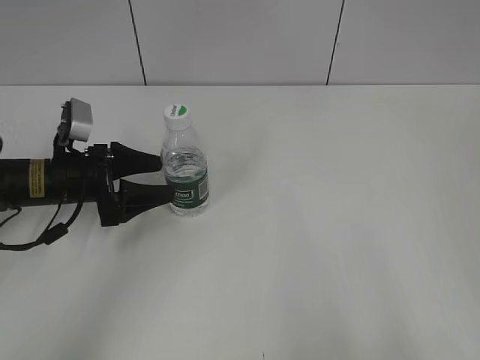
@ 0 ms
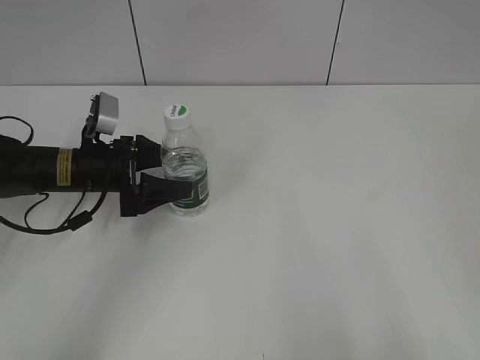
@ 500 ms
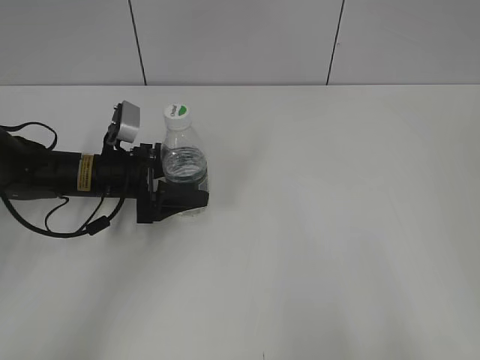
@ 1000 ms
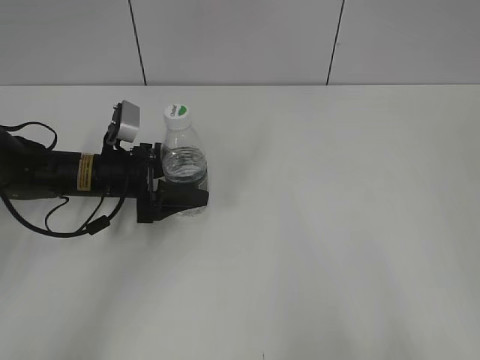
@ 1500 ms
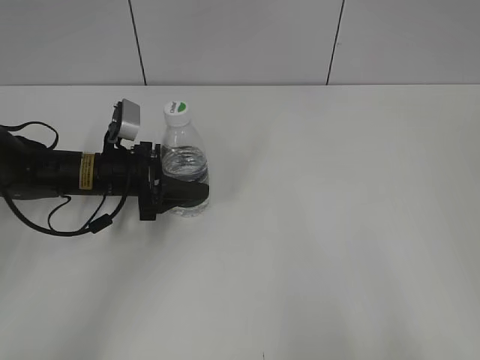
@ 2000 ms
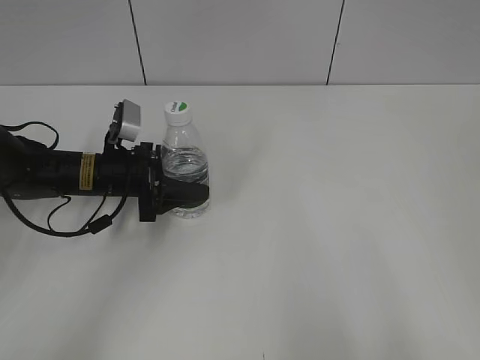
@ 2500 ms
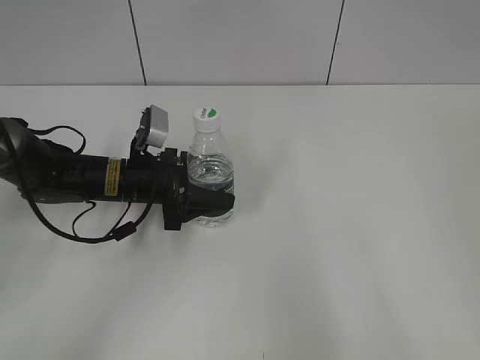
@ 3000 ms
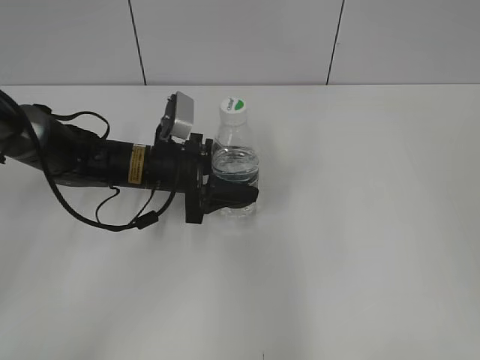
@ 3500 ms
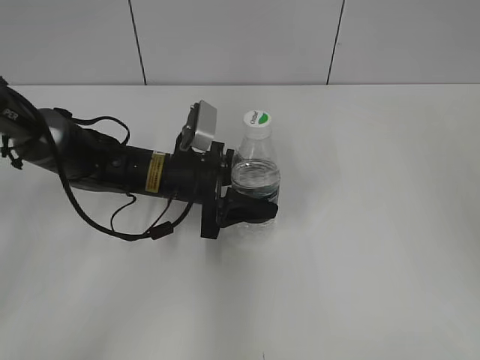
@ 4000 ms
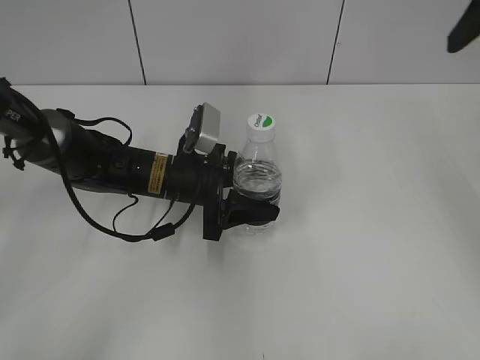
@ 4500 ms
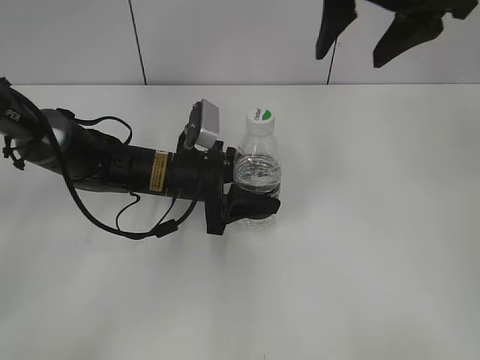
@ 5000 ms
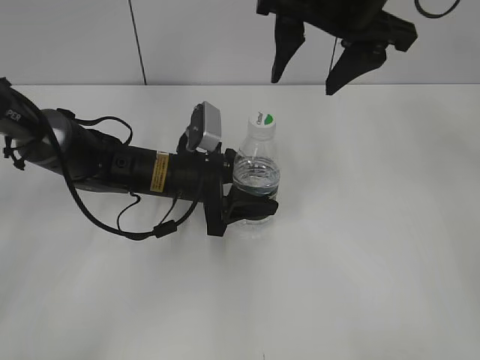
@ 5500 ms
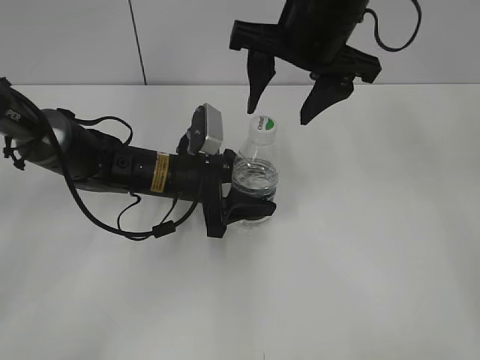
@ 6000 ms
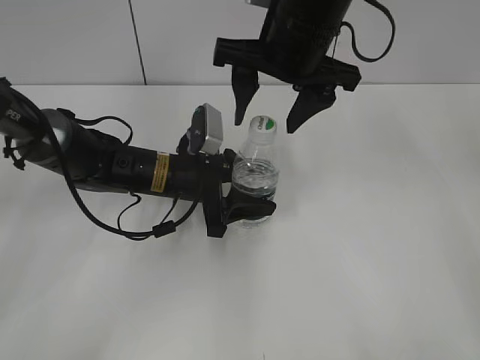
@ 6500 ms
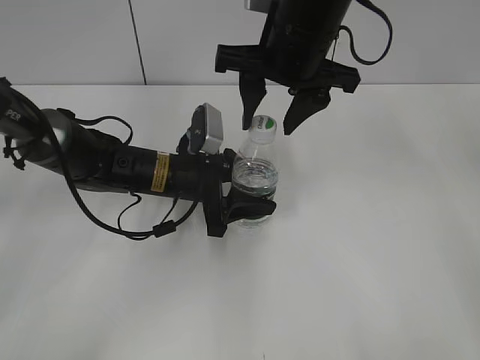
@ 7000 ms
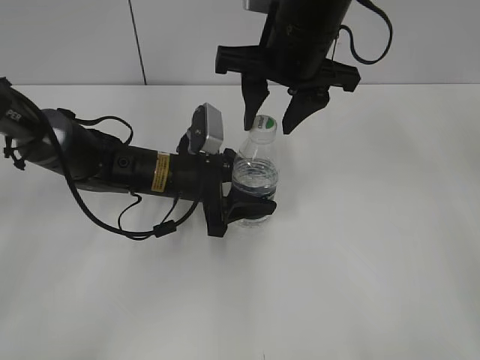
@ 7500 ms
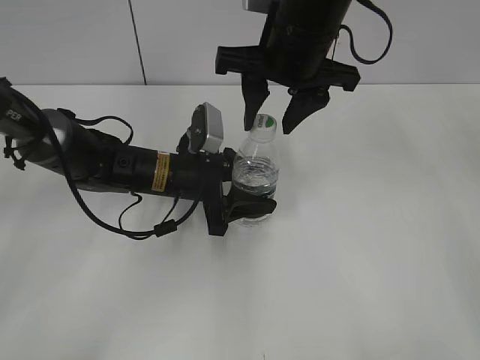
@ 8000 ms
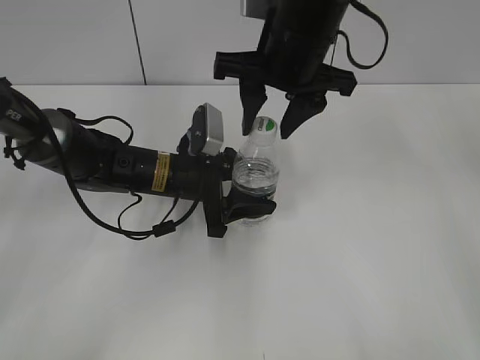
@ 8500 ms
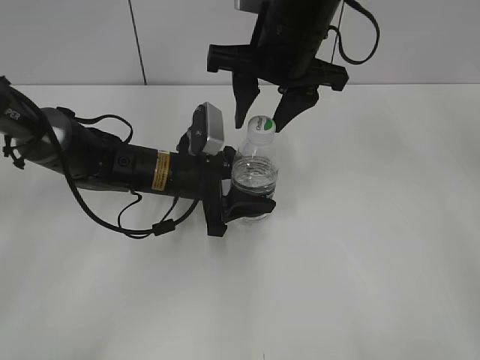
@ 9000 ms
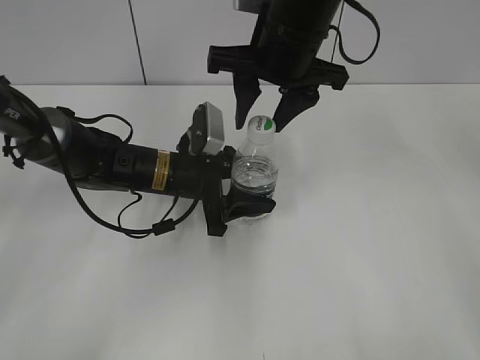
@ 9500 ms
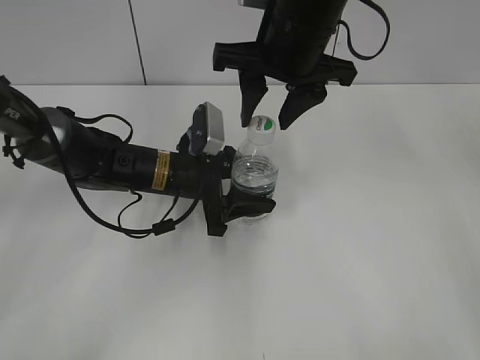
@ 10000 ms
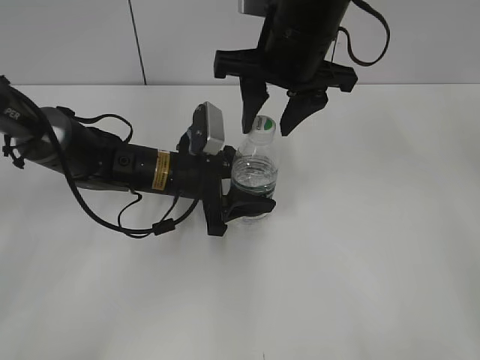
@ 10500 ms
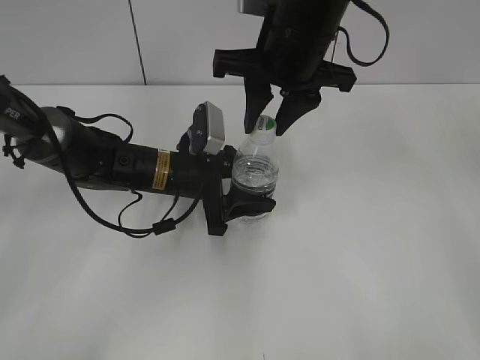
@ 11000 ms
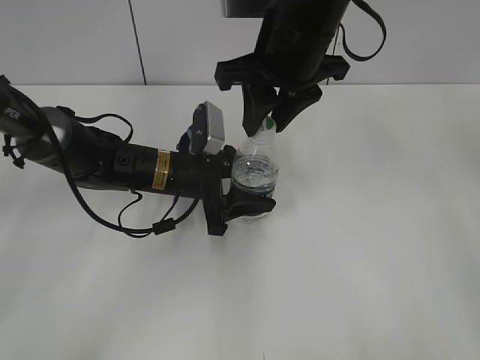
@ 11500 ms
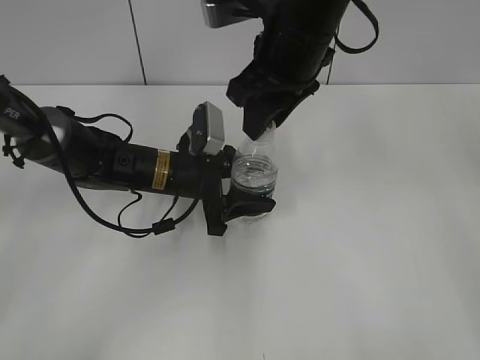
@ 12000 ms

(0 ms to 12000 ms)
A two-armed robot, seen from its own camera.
Step, 0 ms - 2000 ms: Grasp the bottle and move it to the center of the table with the left gripper.
Step, 2500 ms - 4500 ms: Lift the bottle and move it to the center of the table with the left gripper.
0 ms - 2000 ms: The left gripper shifts by approximately 5 cm, and closes up.
2000 ms - 4000 ms: The left gripper travels to the right by roughly 10 cm. Meanwhile the right gripper heads forward, covering some 20 cm.
4000 ms - 6000 ms: The right gripper goes roughly 25 cm to the left and forward.
6000 ms - 8000 ms: The right gripper closes up.
8000 ms - 10000 ms: The grippers make only small movements.
10000 ms - 12000 ms: The right gripper closes.

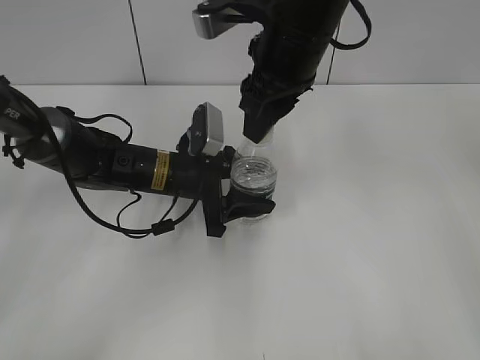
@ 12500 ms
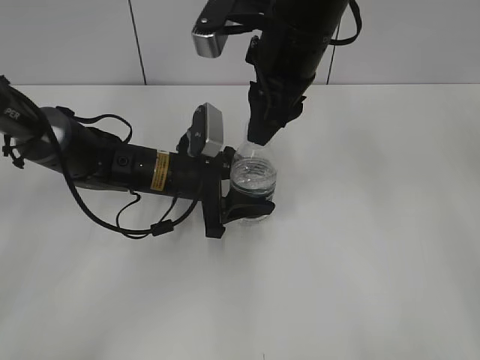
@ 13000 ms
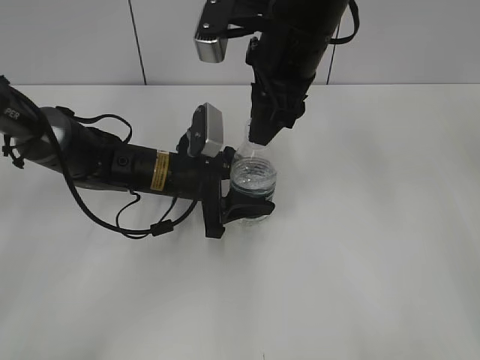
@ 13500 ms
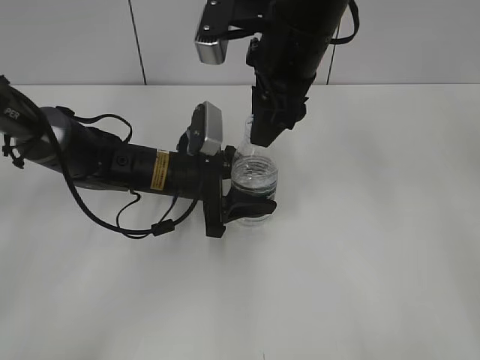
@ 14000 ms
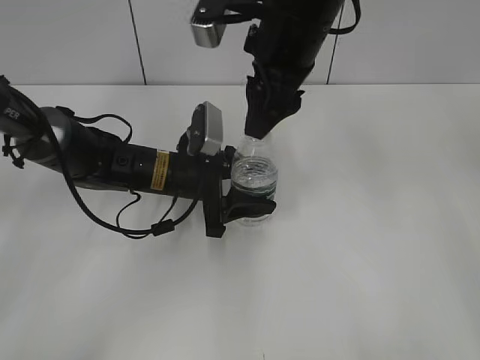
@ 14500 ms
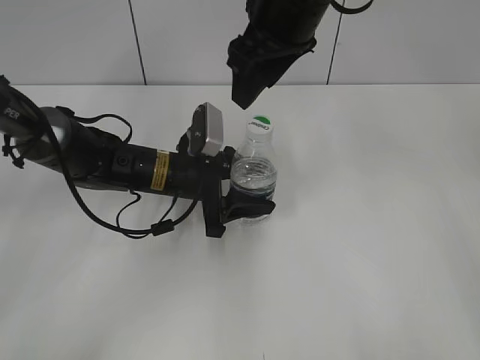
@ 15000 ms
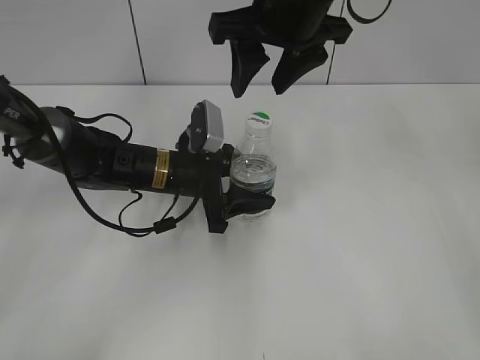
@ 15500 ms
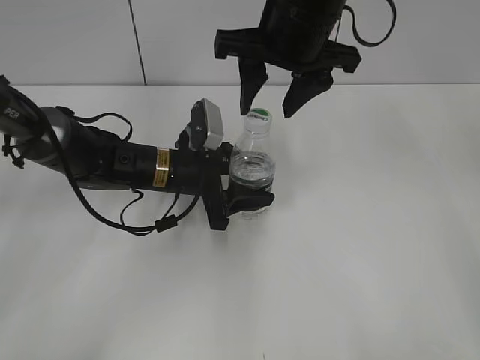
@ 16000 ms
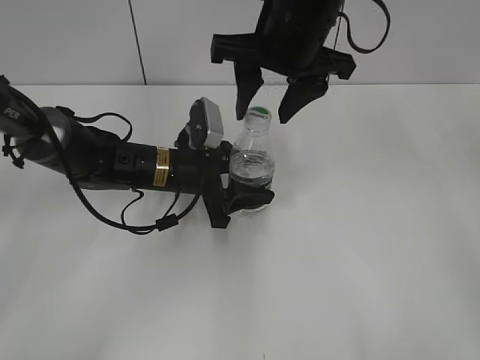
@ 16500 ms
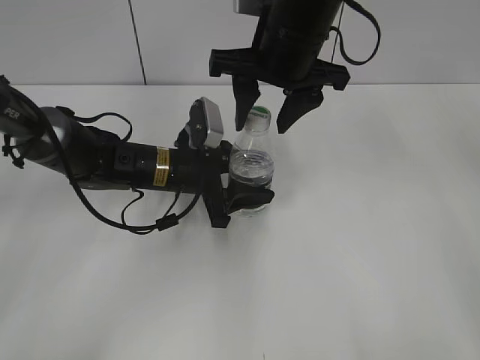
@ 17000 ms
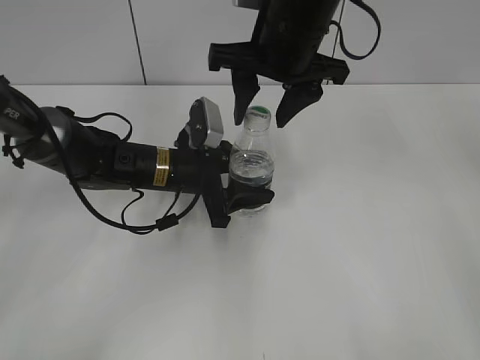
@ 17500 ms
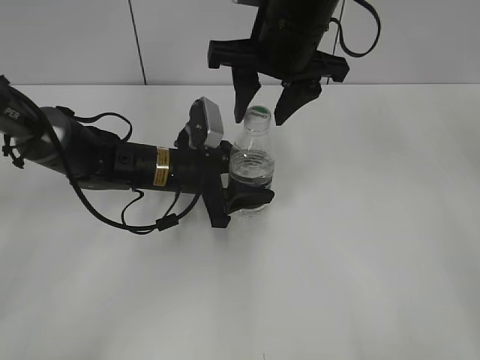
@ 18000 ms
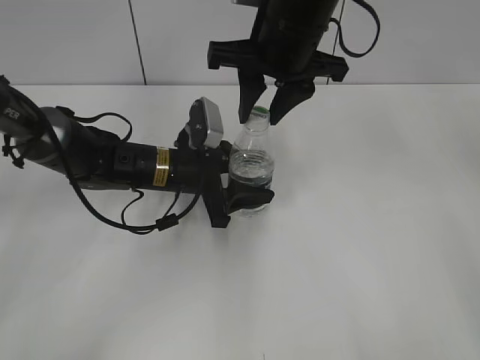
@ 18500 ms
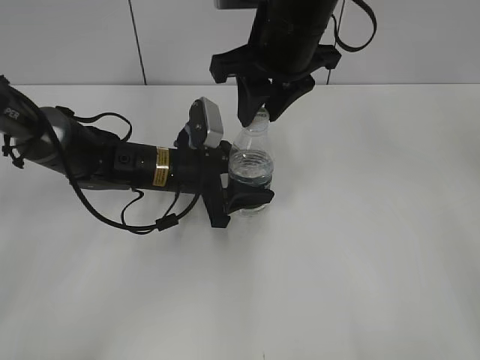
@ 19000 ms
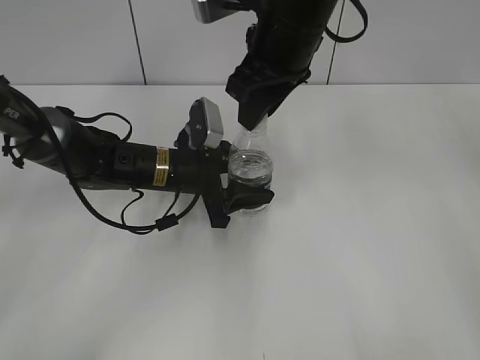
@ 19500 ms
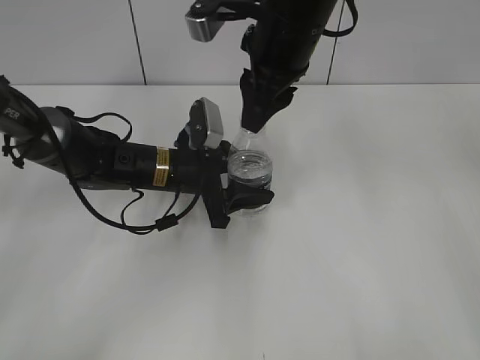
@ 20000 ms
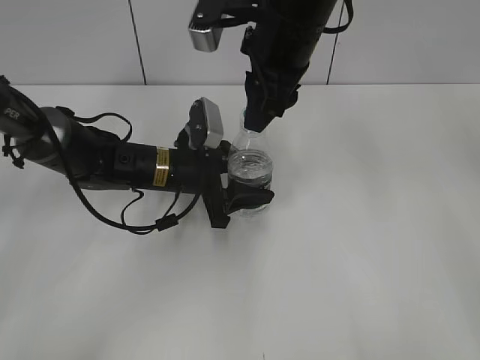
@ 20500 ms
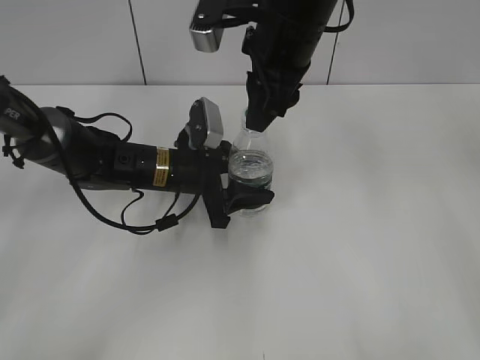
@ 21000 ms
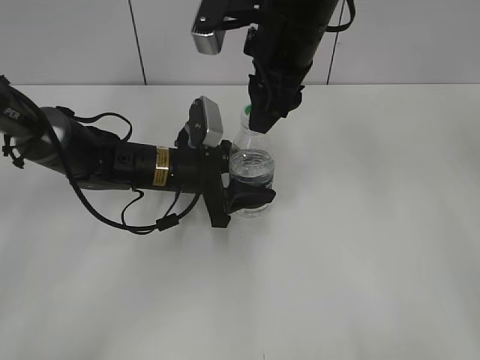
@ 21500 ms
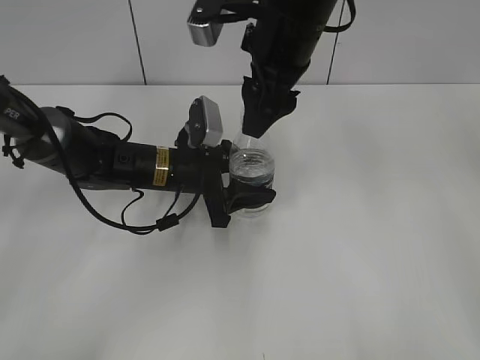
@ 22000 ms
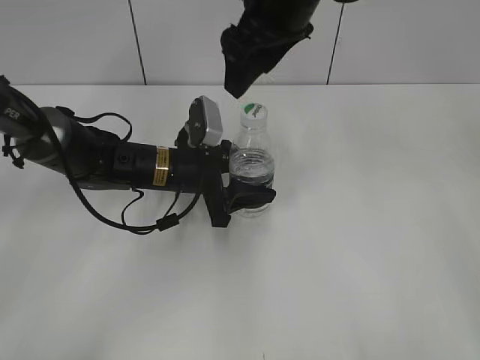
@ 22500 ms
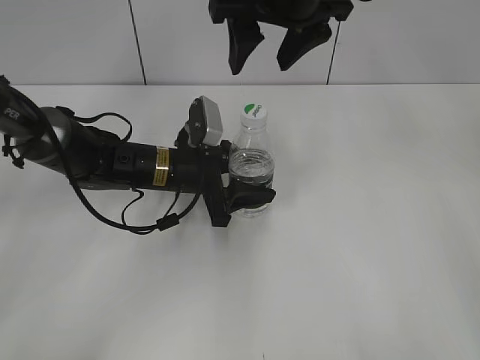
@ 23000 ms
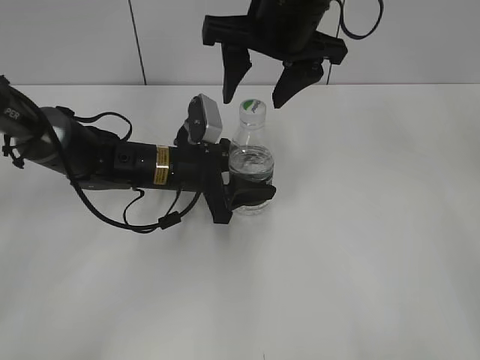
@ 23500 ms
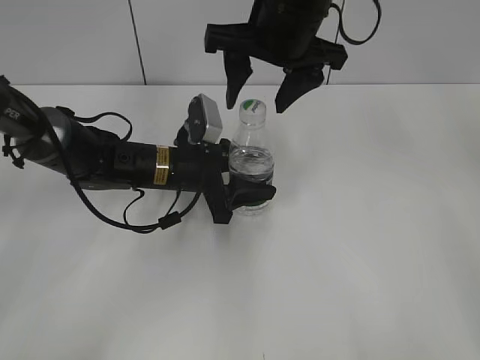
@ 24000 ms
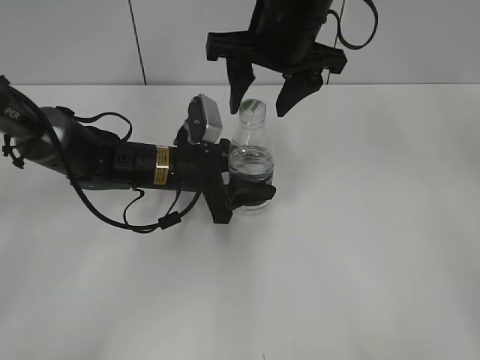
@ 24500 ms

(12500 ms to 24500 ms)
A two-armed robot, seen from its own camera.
12500 ms - 14500 ms: The right gripper opens.
16500 ms - 18500 ms: The right gripper closes up.
20500 ms - 22500 ms: The right gripper opens up.

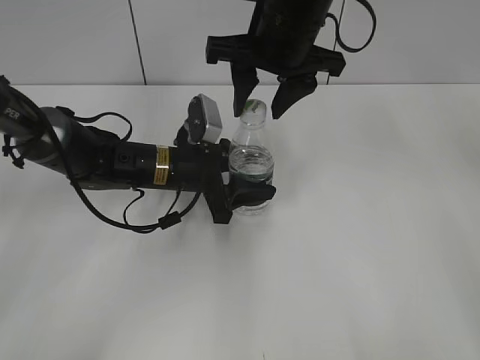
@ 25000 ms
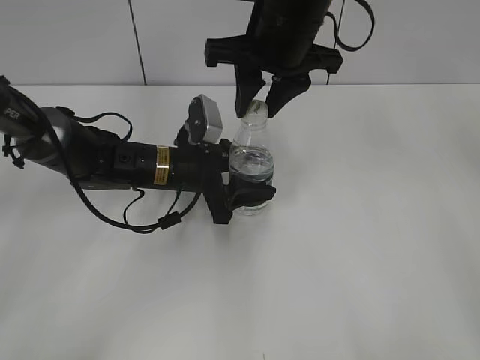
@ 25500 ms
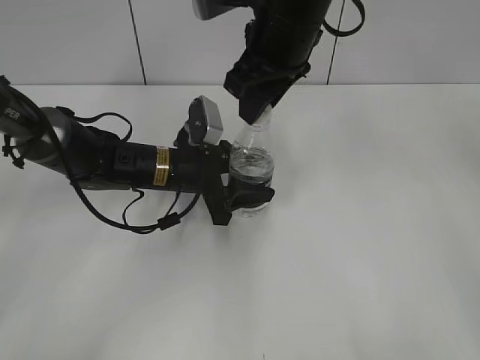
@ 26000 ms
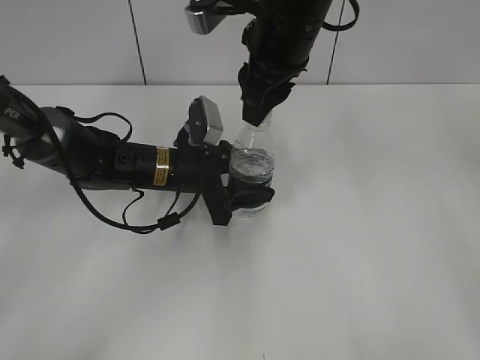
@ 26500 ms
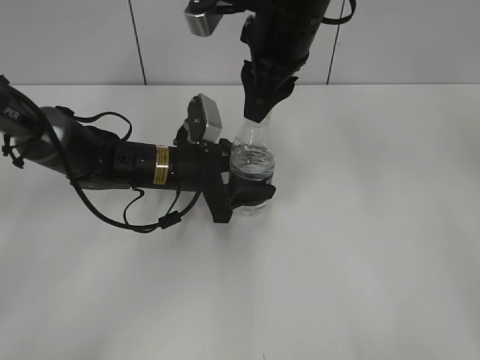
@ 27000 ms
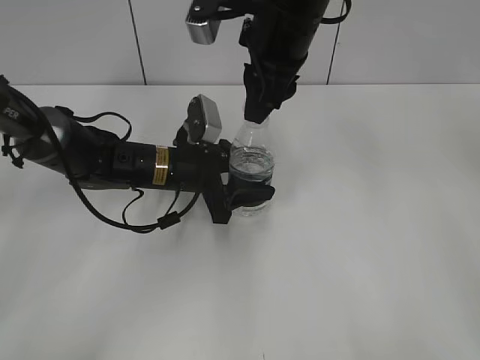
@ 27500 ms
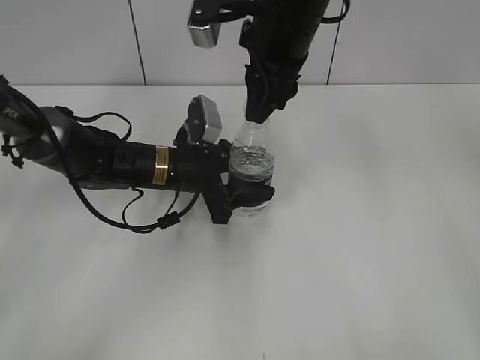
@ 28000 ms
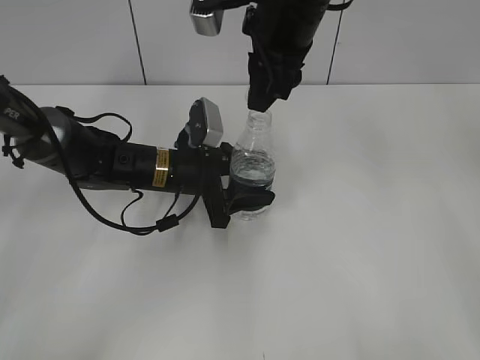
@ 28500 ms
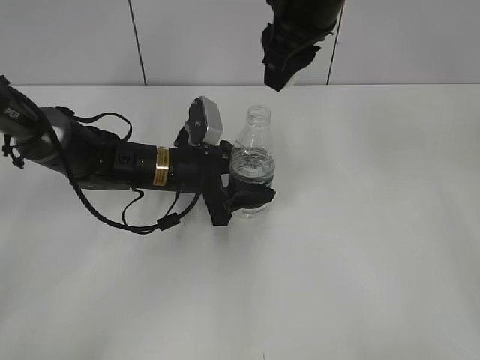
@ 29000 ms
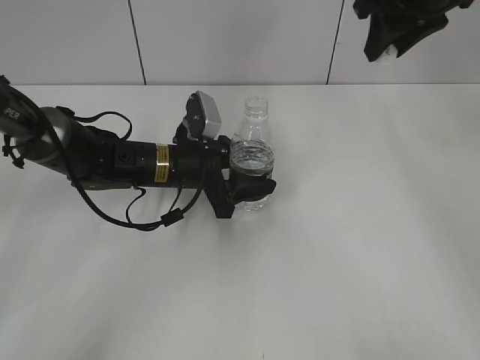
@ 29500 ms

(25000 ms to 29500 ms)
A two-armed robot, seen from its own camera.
Step, 25000 ms - 28500 ms: Unscrew the bottle cap with the right gripper while holding the bottle with the left gripper.
25000 ms - 27000 ms: The right gripper closes its fingers.
27000 ms - 29500 ms: The right gripper travels to the right and forward by some 15 cm.
